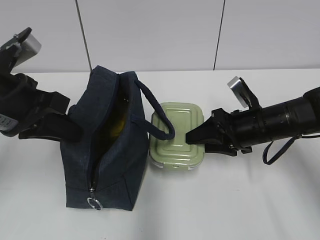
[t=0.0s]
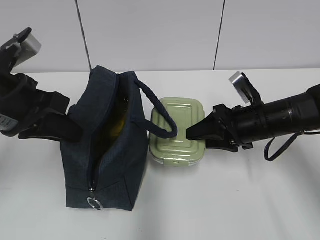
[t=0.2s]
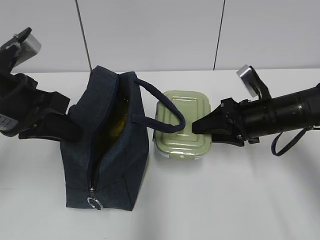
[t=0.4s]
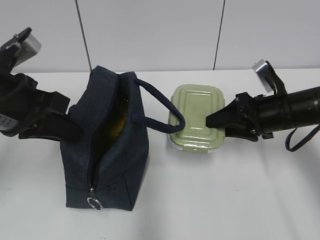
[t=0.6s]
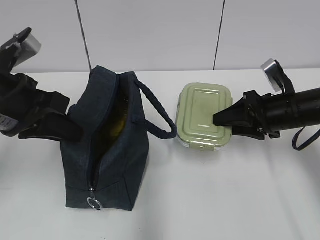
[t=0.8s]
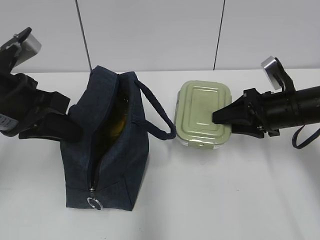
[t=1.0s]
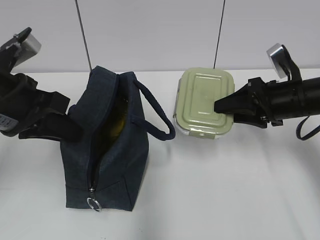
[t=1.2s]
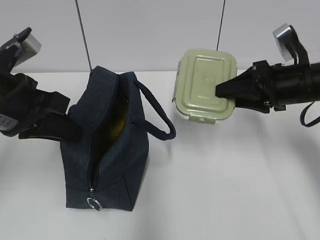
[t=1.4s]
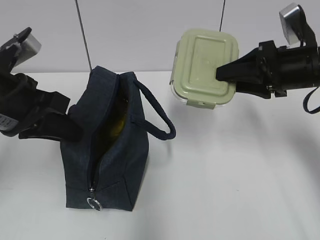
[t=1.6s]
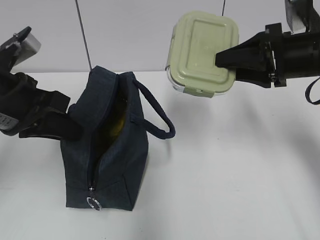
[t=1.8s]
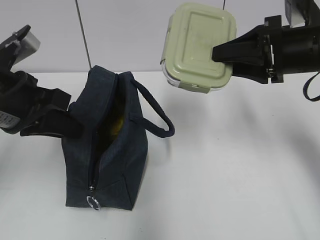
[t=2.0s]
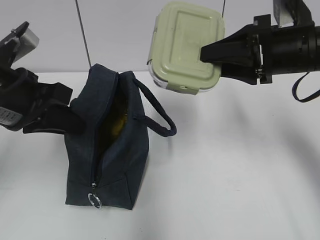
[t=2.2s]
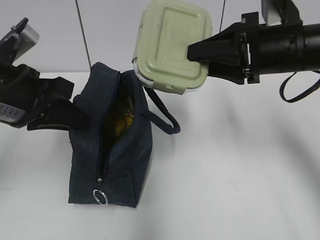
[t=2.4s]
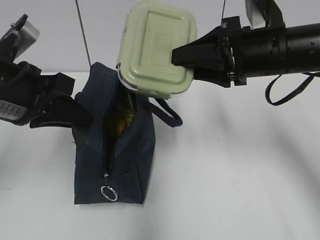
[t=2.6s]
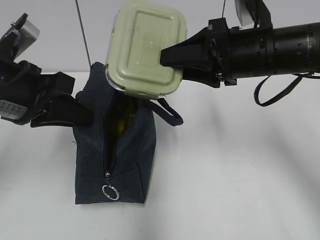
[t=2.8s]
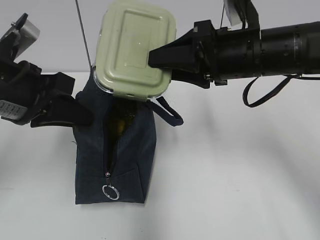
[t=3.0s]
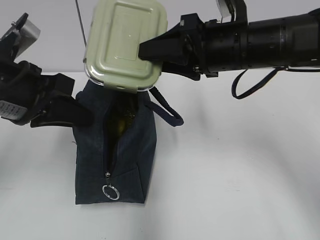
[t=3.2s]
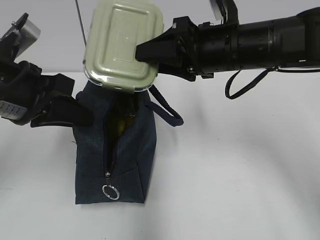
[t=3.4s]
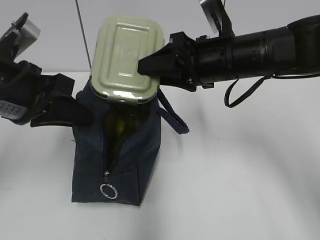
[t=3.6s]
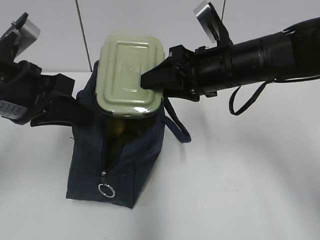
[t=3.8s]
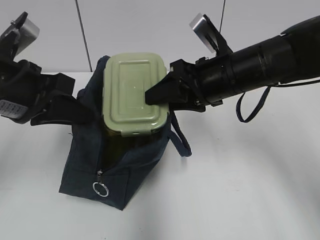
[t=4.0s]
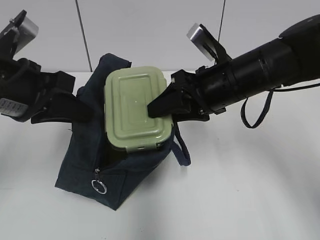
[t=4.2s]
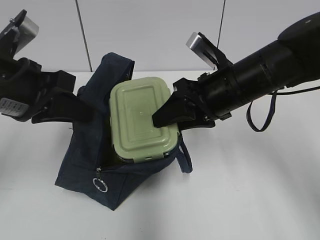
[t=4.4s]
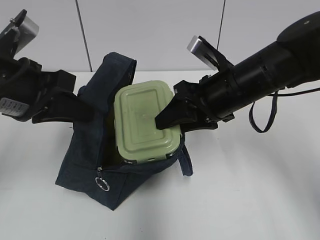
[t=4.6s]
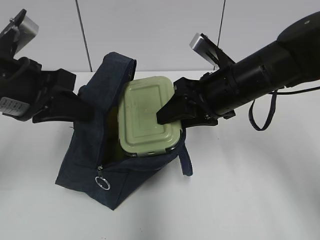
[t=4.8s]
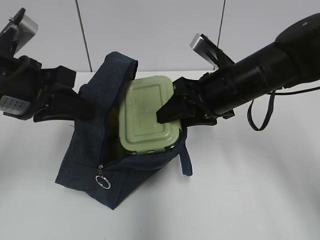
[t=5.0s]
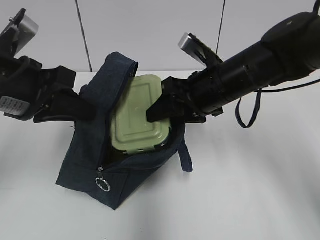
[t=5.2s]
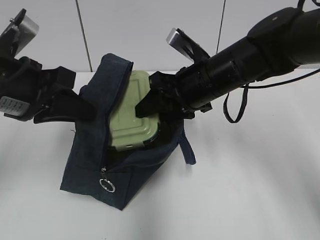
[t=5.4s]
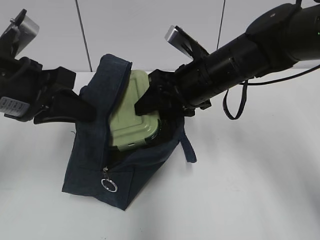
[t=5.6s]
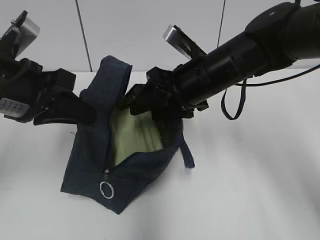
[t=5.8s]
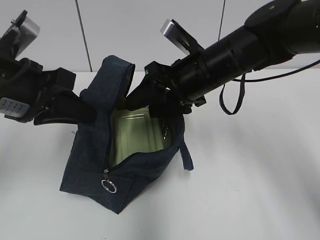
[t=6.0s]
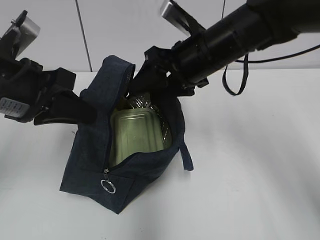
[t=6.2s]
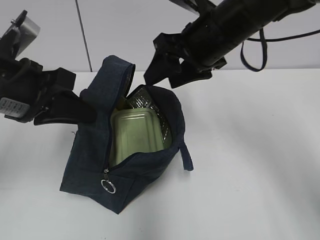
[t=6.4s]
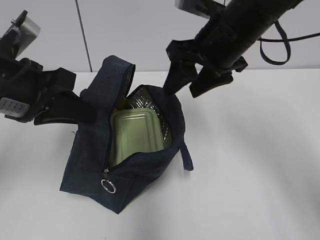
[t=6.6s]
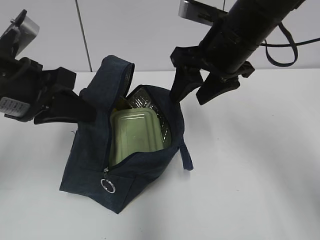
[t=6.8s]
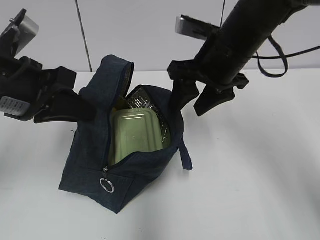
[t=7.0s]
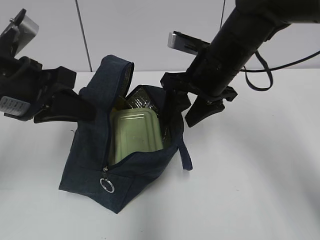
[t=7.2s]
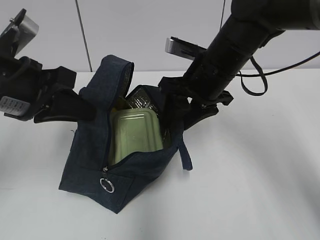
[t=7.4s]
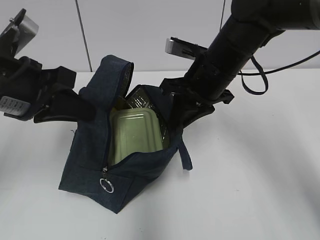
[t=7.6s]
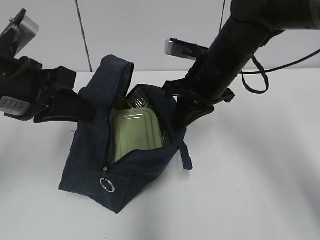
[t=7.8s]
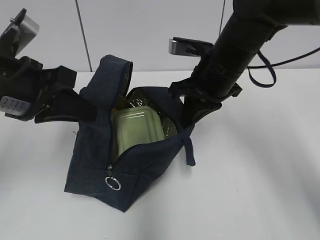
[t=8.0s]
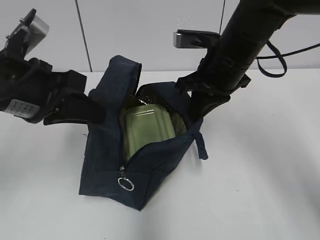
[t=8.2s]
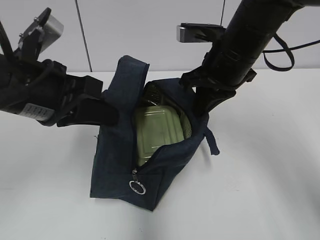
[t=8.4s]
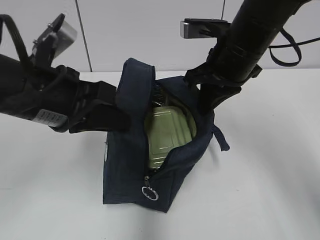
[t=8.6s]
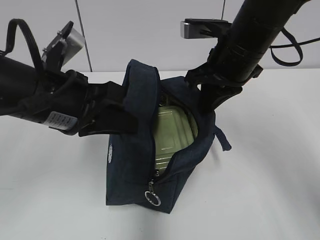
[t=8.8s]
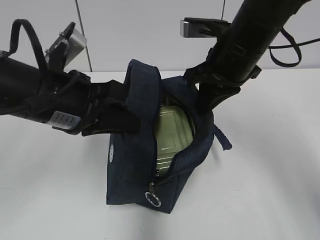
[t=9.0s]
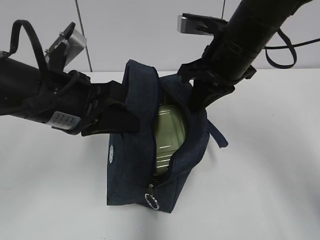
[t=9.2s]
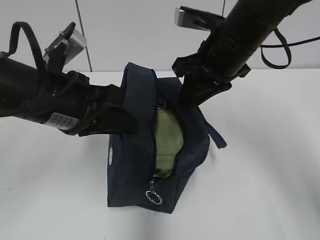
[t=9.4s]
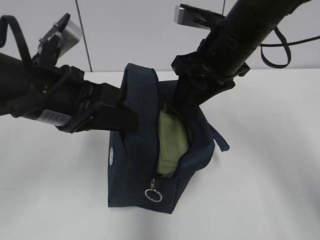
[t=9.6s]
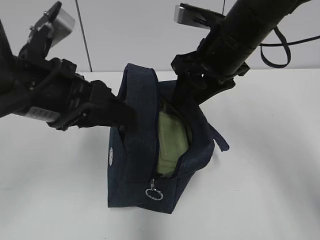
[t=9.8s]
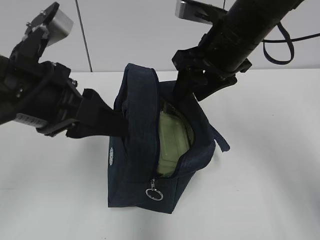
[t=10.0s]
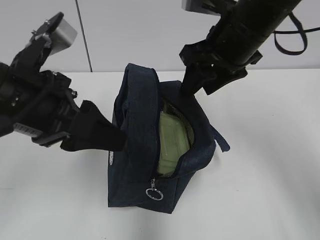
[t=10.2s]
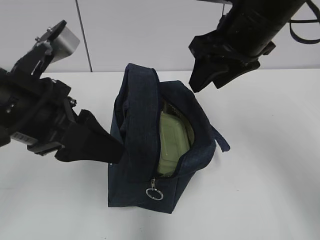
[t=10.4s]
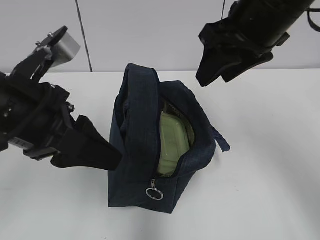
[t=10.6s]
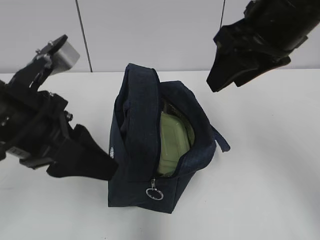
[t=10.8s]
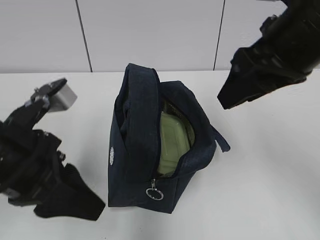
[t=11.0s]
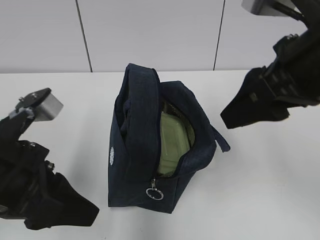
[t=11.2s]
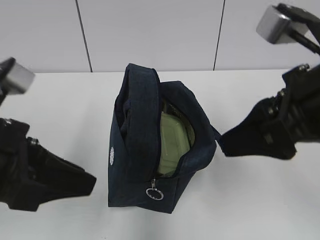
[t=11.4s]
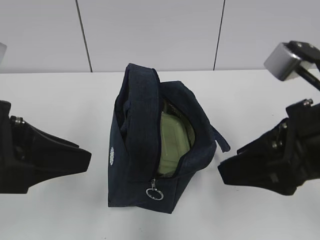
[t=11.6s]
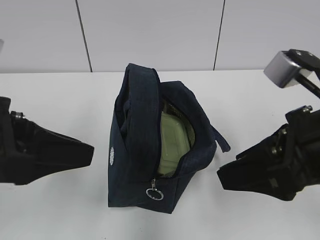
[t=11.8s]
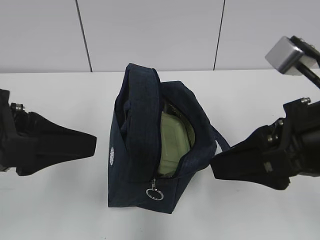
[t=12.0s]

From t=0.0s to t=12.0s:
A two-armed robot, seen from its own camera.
Step, from t=6.0s to t=7.8s: Grab the lunch bag with your right hand.
Step, from t=8.0s to t=9.8s: Move the lunch bag to the right.
From t=0.0s to t=1.6s: The right gripper travels upward by roughly 10 cm.
From t=1.6s to t=3.0s: The right gripper heads to the left, covering approximately 10 cm.
From t=3.0s to t=4.4s: The right gripper heads downward, covering about 5 cm.
From t=6.0s to t=7.6s: The right gripper closes up.
From t=7.6s to t=9.0s: The left gripper shifts approximately 5 cm to the right.
From t=9.0s to t=10.4s: The left gripper opens its fingers; the right gripper moves upward, approximately 5 cm, and opens up.
From t=10.4s to t=12.0s: The right gripper heads backward, covering approximately 15 cm. The left gripper travels backward by approximately 5 cm.

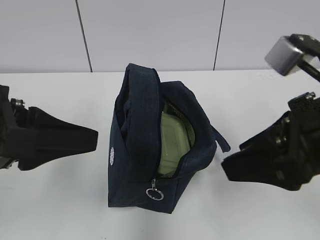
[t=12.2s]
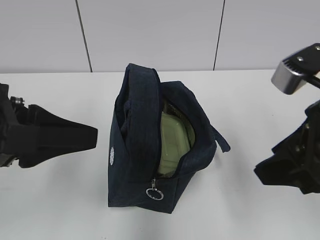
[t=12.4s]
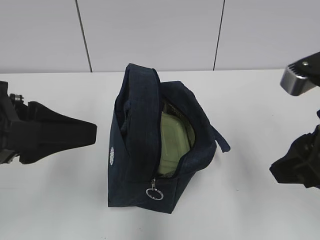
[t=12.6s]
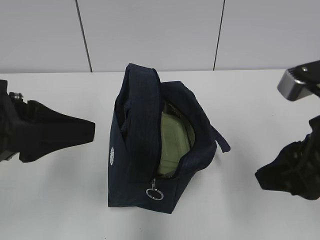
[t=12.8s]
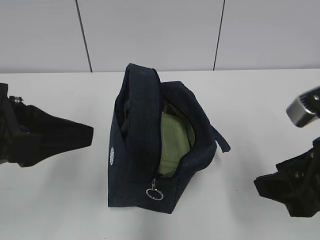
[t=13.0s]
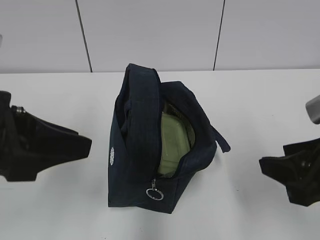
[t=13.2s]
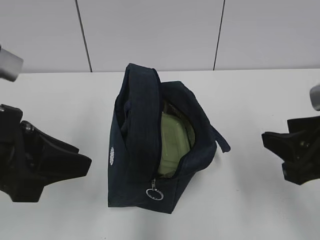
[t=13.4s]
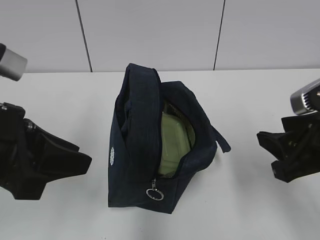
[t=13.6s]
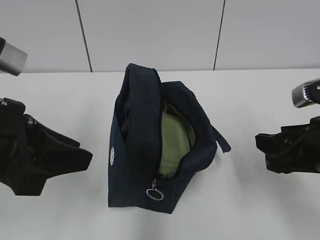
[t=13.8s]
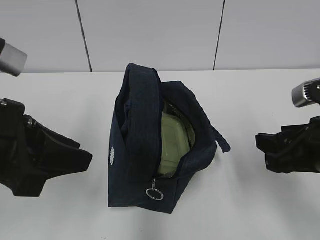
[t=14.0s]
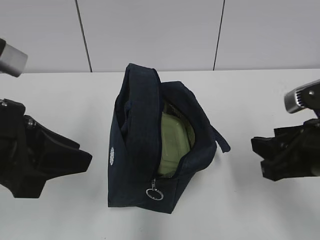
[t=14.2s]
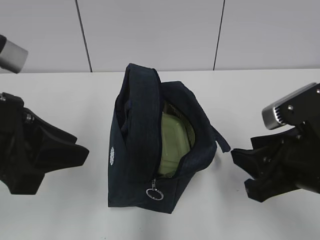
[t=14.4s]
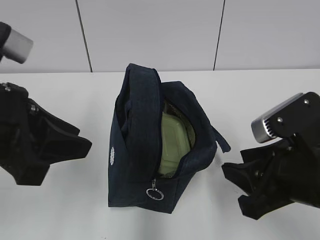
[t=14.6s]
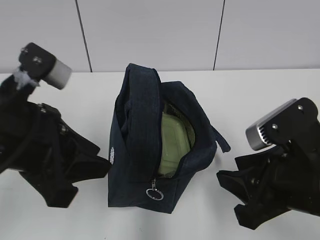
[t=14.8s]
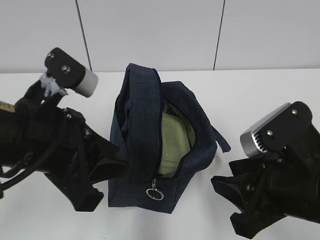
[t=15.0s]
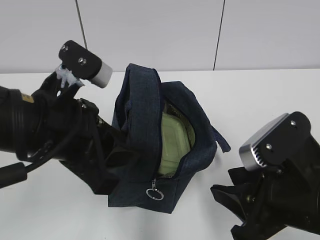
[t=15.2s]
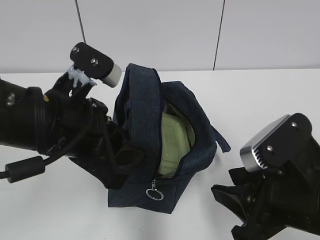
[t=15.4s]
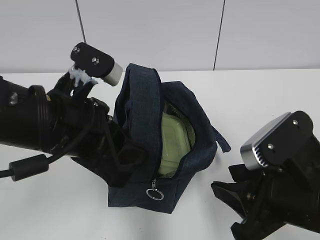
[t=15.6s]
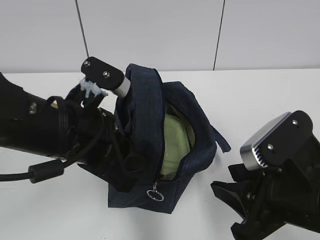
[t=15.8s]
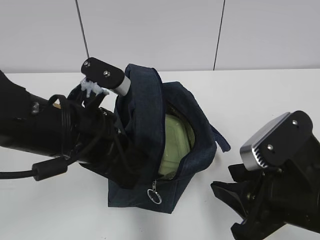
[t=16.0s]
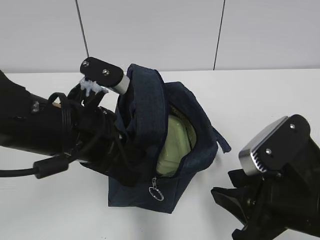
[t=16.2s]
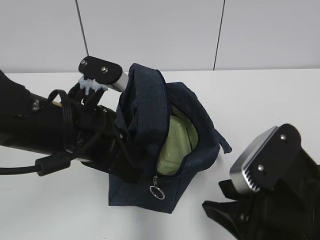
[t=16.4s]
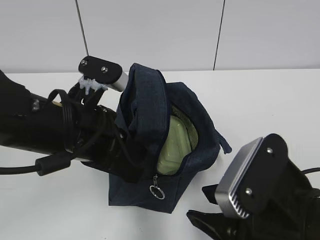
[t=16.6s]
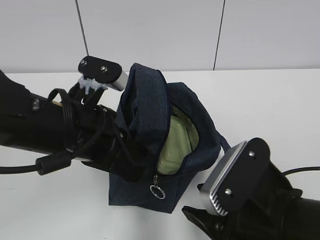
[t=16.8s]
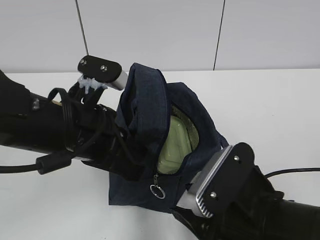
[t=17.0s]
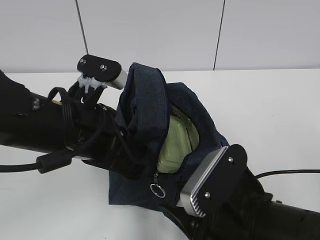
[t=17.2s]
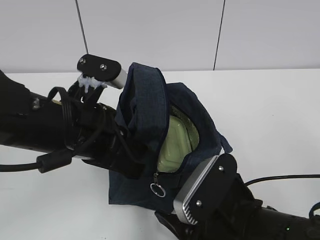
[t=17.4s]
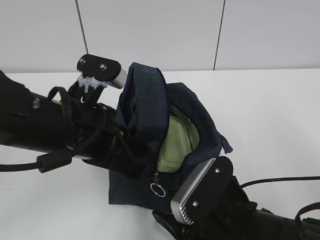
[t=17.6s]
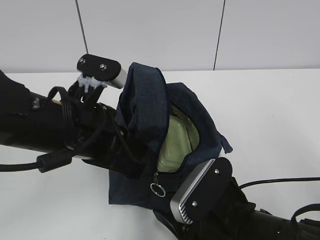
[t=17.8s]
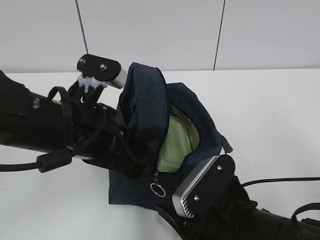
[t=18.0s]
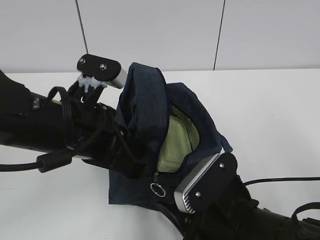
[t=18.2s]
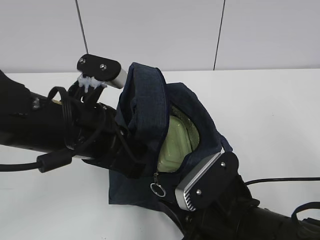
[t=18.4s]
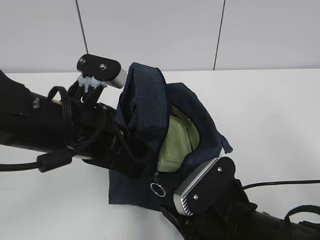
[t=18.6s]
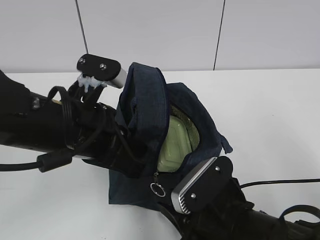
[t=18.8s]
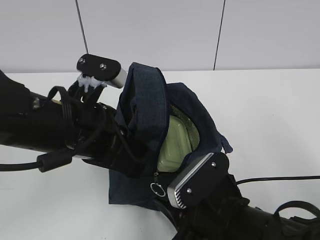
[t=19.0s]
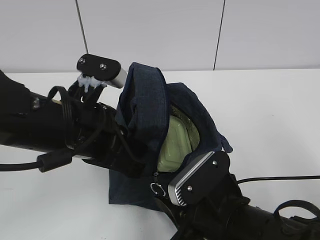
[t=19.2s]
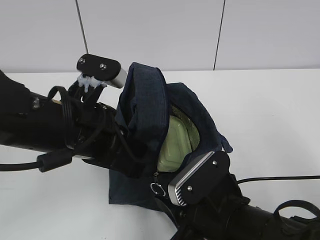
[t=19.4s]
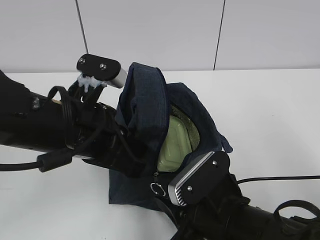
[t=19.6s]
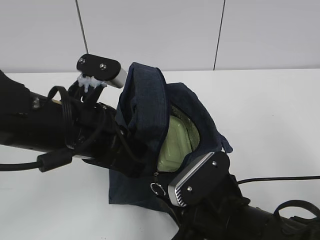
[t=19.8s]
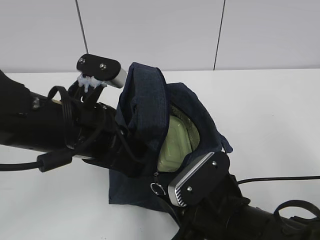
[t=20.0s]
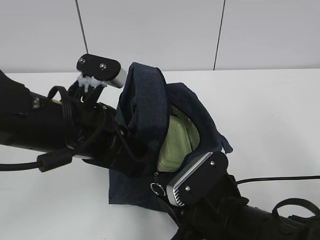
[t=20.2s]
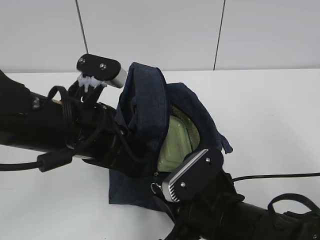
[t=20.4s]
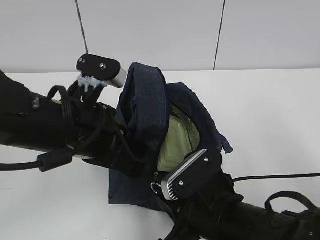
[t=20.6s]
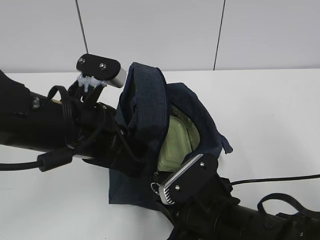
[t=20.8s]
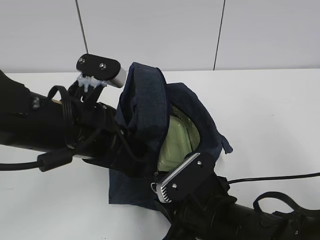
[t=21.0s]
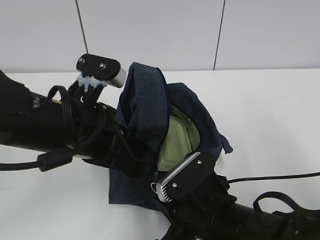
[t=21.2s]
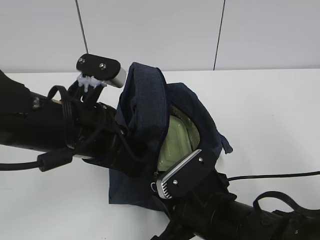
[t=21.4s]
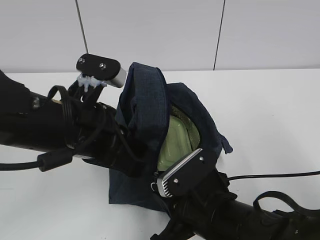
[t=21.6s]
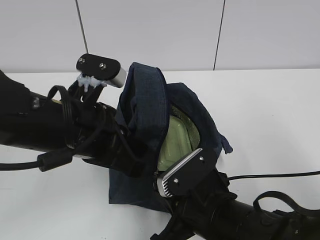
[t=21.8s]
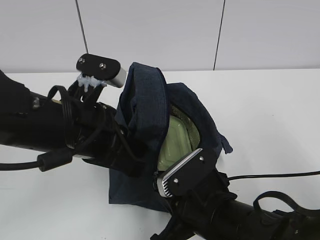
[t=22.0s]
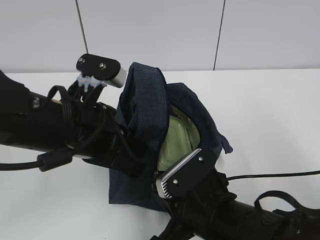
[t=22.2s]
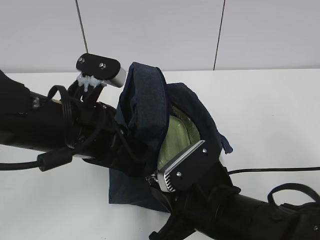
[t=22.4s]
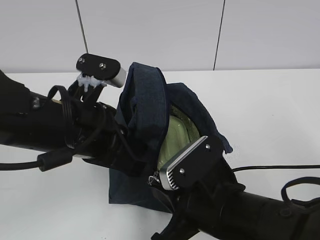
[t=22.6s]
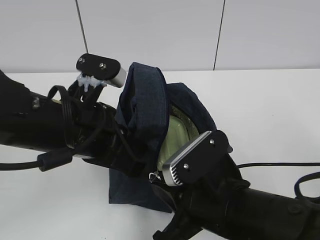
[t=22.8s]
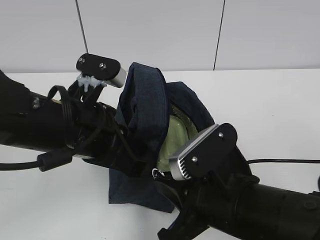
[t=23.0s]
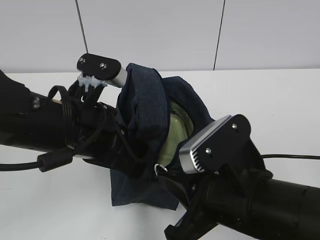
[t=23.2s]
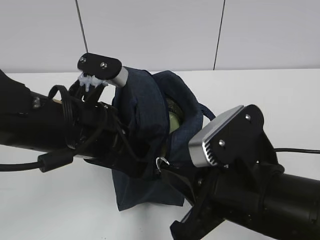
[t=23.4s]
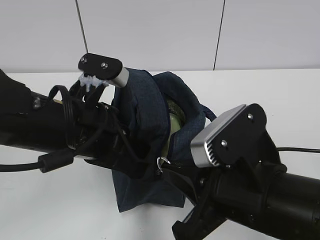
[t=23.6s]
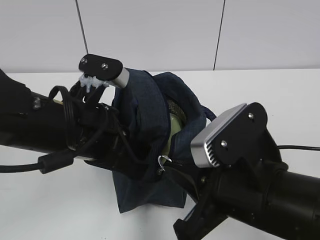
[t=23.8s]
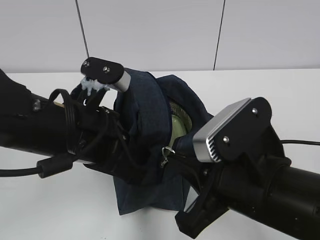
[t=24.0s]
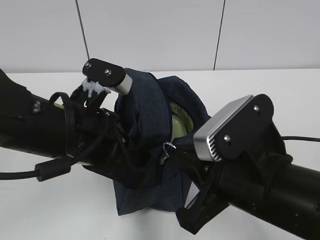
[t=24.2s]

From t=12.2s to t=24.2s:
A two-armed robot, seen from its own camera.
From t=12.2s to t=13.8s: The right gripper travels downward by approximately 10 cm.
From t=13.8s to t=15.2s: The left gripper is displaced to the right by approximately 5 cm. The right gripper moves to the left, some 5 cm.
From t=15.2s to t=16.6s: The left gripper closes its fingers.
From t=16.6s to t=18.2s: The right gripper travels downward by approximately 5 cm.
From t=18.2s to t=19.8s: Neither gripper changes place.
From t=19.8s to t=22.6s: The grippers move only a little.
From t=22.6s to t=24.2s: The right gripper moves upward, some 5 cm.
